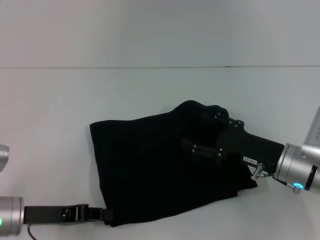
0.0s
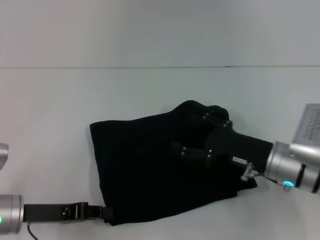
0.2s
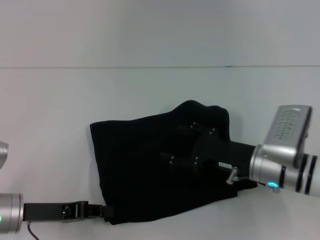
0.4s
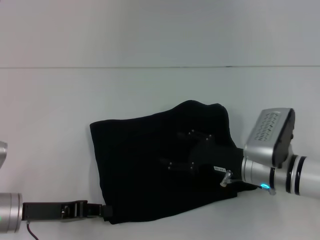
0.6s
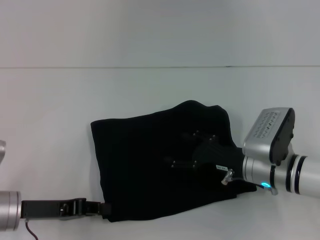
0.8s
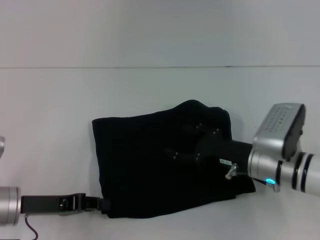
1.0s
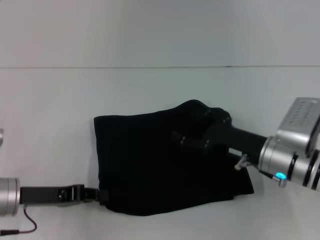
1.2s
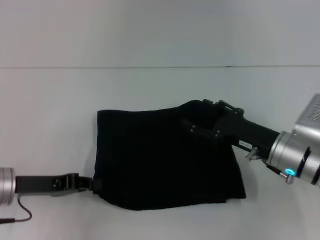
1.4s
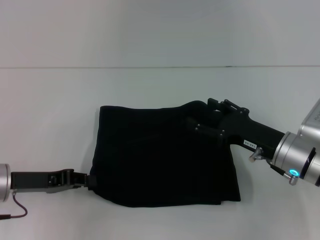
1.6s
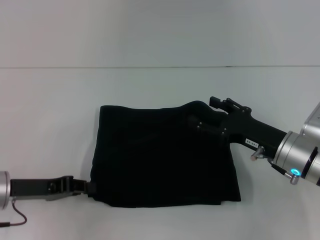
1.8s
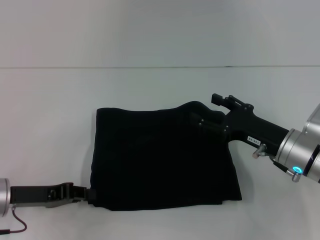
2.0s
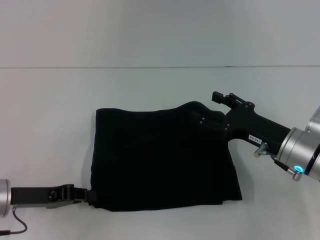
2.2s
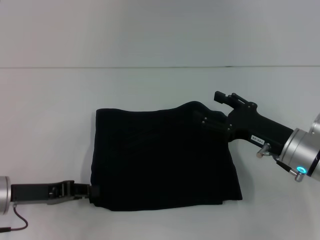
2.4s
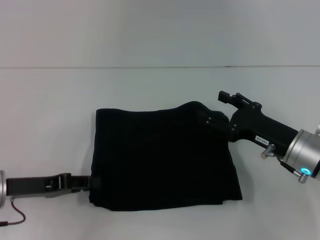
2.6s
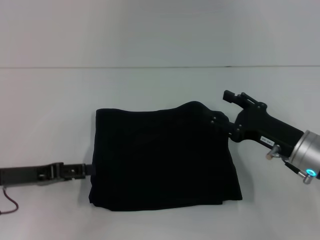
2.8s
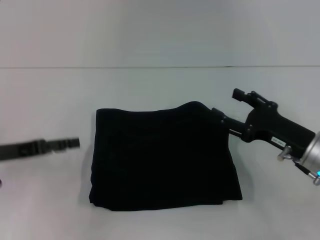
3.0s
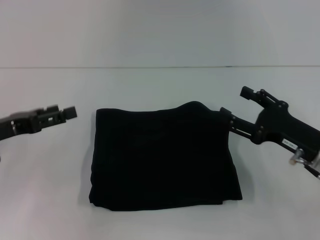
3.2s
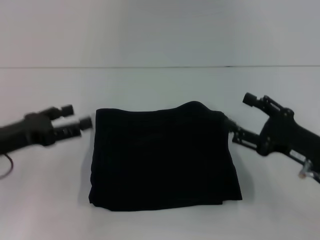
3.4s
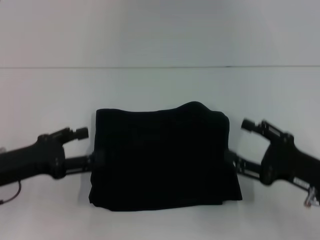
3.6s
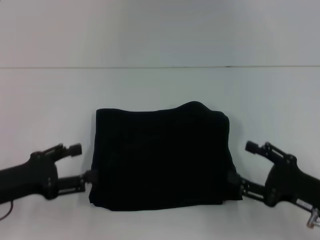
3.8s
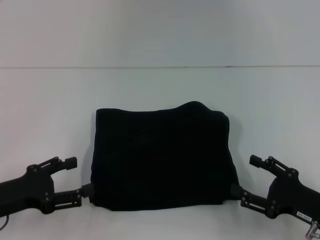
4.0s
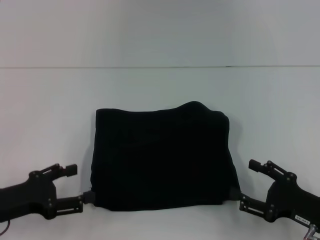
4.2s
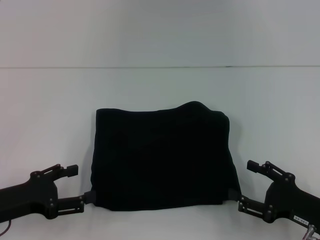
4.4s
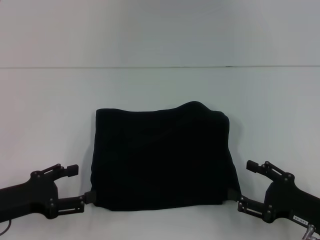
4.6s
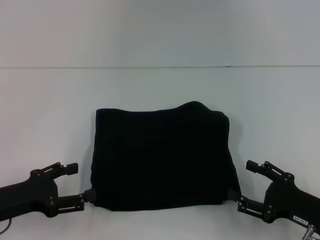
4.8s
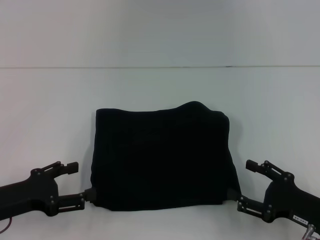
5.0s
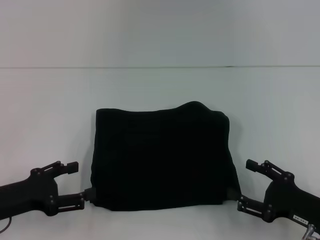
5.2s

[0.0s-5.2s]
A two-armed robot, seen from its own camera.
0.0s to 1.8s: There are only small adjustments of the grippers.
1.8s to 3.4s: The left gripper moves approximately 5 cm, and opens its fingers; the right gripper moves to the right, roughly 5 cm.
3.4s to 5.2s: The right gripper moves backward and downward, roughly 10 cm. The left gripper shifts some 5 cm backward.
